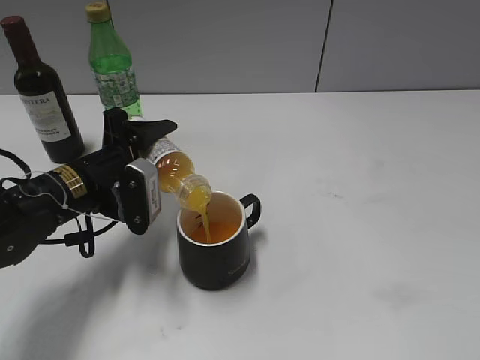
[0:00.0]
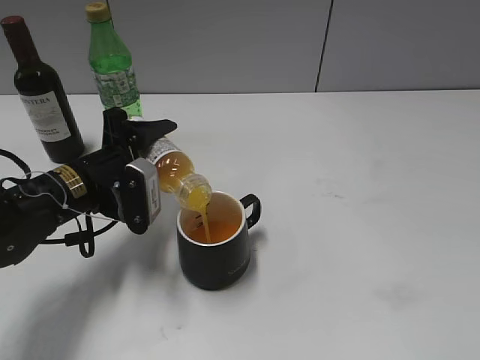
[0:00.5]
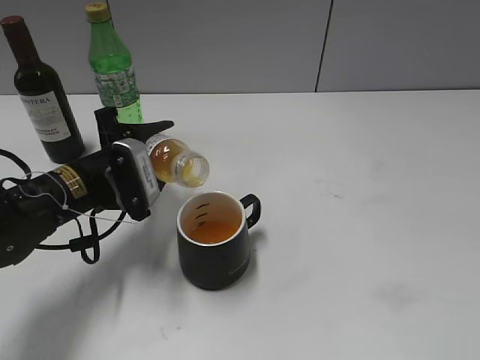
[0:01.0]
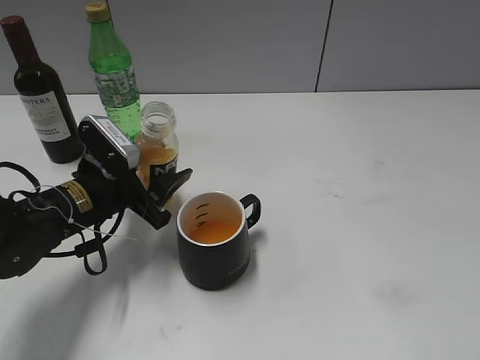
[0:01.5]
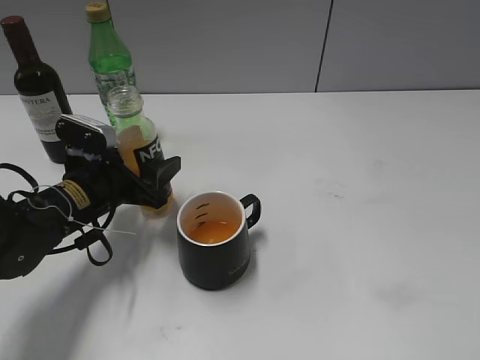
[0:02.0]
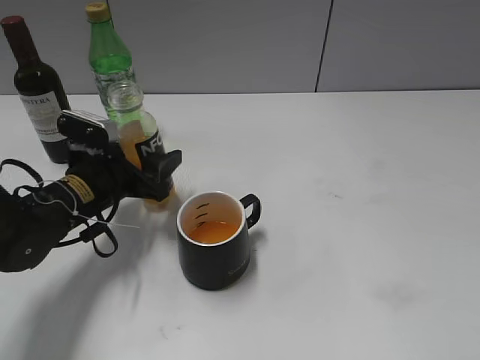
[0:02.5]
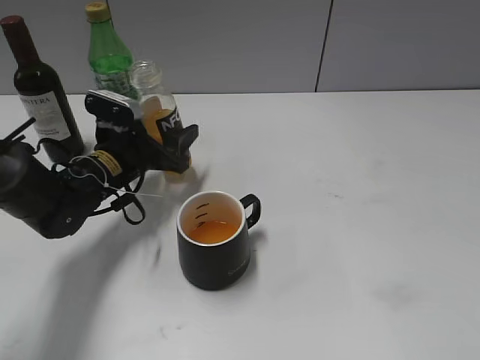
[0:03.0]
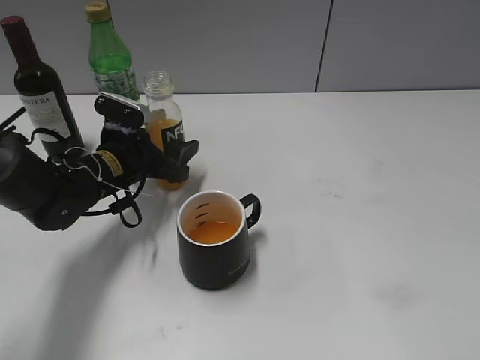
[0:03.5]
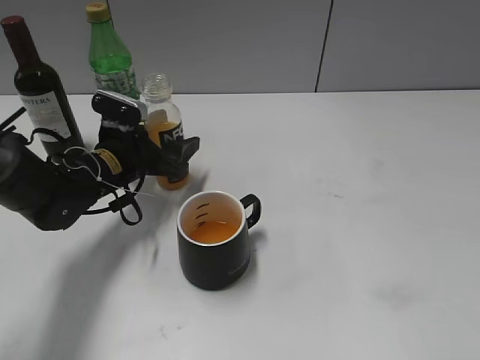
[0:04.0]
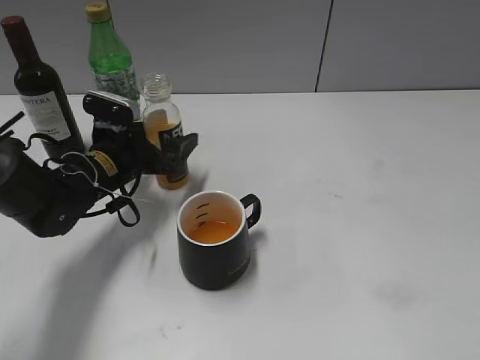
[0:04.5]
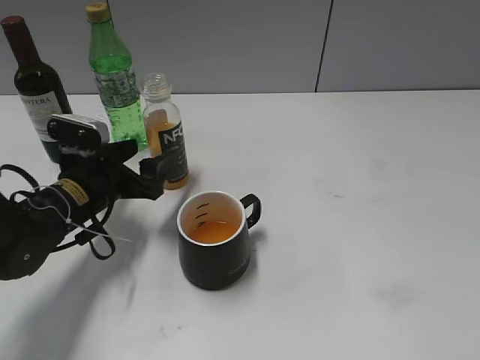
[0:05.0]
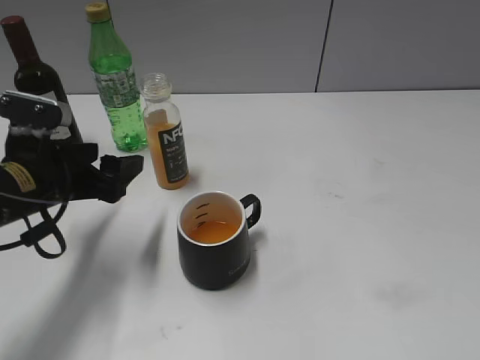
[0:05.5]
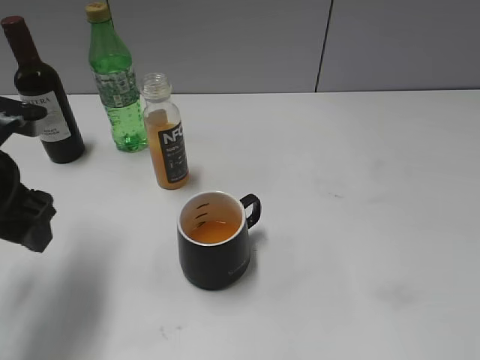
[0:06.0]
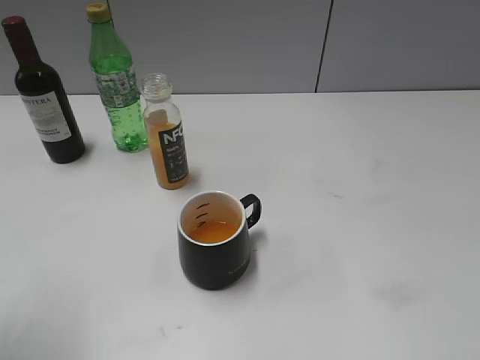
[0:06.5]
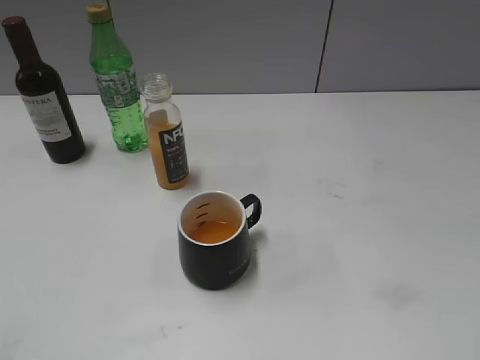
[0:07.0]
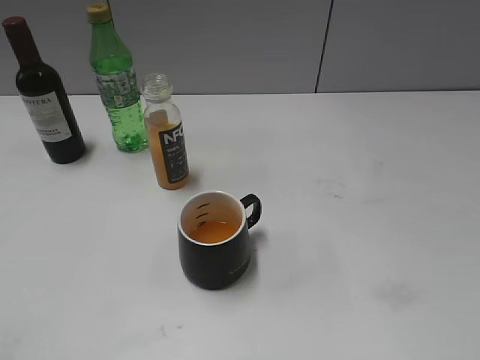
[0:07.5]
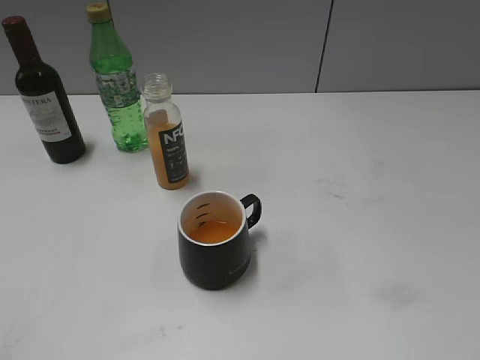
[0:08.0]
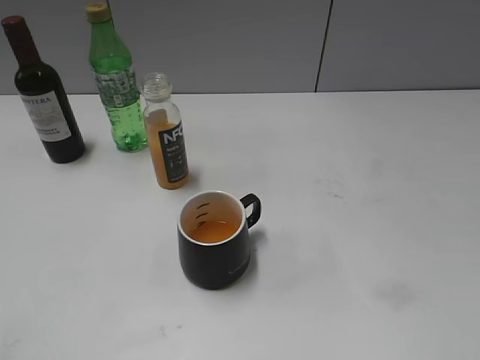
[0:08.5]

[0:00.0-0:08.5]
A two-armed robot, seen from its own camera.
Step, 0:01.5 to 0:04.5: Place the orange juice bottle on the table with left gripper.
0:02.0 to 0:04.0: The left gripper travels forward by some 5 cm.
0:04.0 to 0:06.5: The left gripper heads upward, backward and to the left, covering approximately 35 cm.
